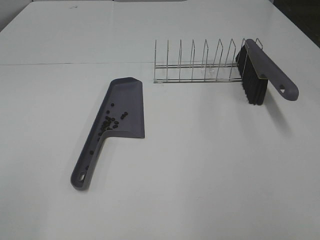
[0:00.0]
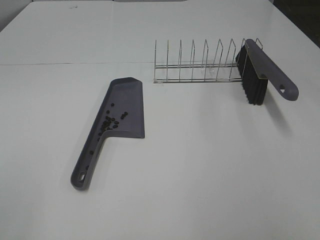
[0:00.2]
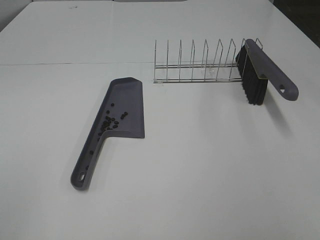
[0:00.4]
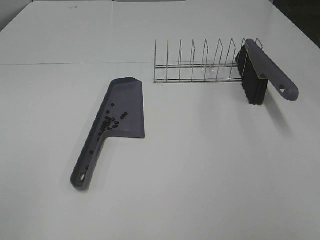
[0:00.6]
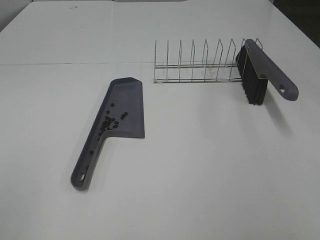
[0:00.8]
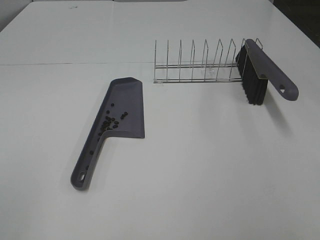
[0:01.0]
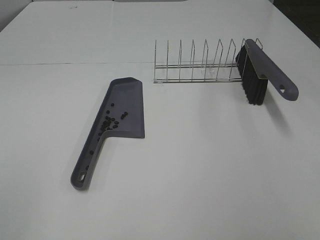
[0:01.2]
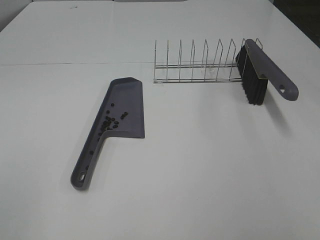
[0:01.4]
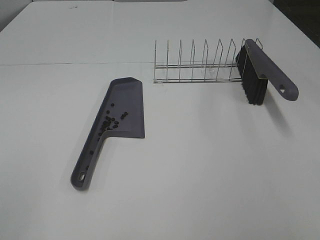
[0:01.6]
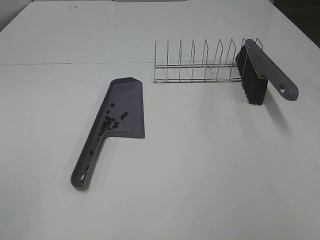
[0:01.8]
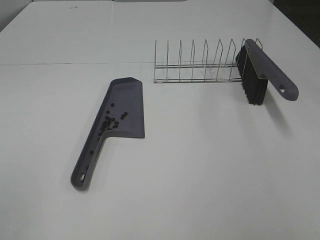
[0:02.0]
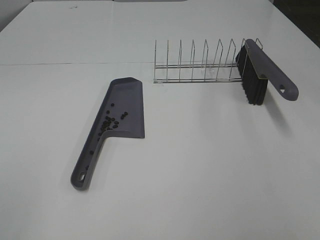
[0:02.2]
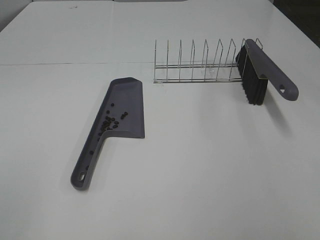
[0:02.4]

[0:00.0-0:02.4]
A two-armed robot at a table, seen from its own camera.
Task of the whole recording: Sweep Coffee Bean.
0:01.2 to 0:02.4: The two grippers keep their place.

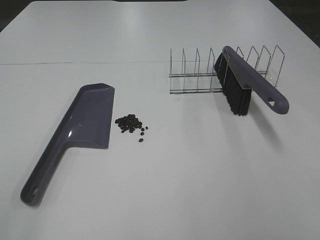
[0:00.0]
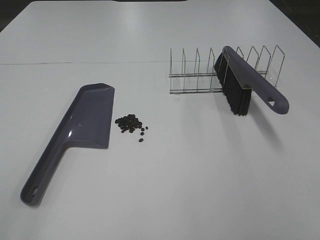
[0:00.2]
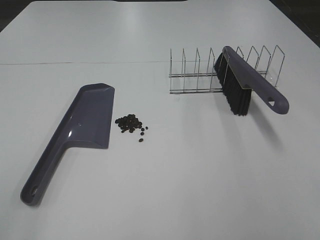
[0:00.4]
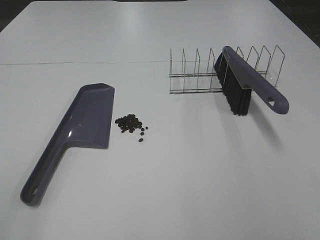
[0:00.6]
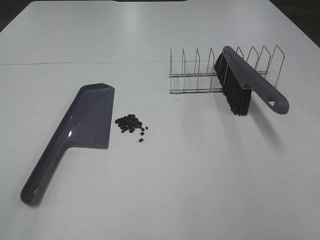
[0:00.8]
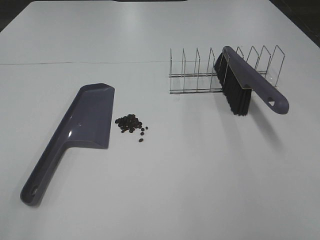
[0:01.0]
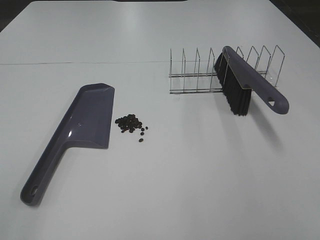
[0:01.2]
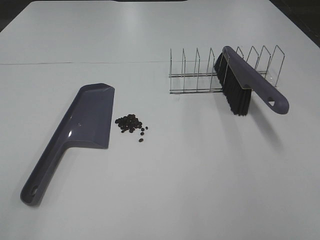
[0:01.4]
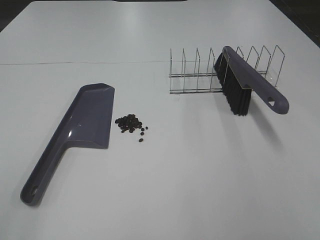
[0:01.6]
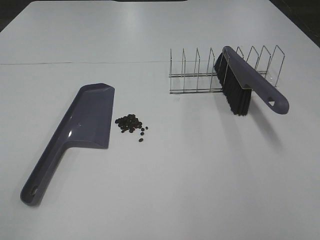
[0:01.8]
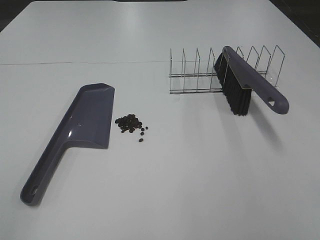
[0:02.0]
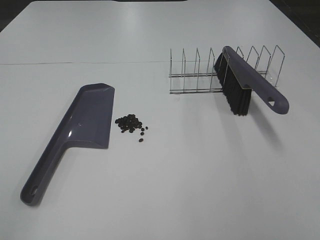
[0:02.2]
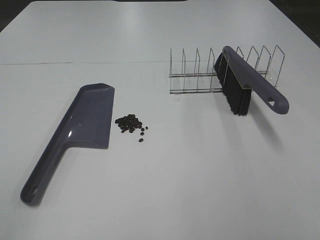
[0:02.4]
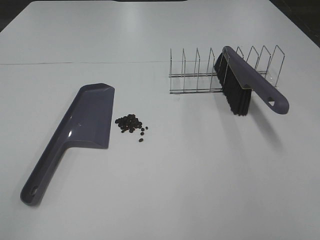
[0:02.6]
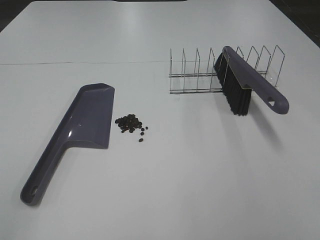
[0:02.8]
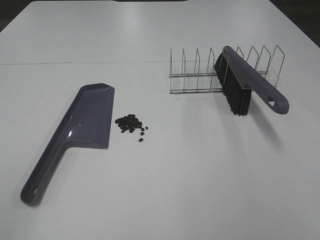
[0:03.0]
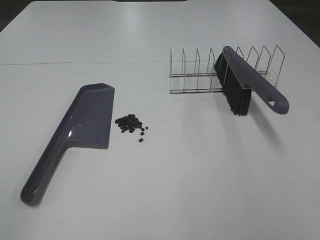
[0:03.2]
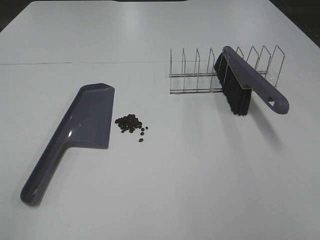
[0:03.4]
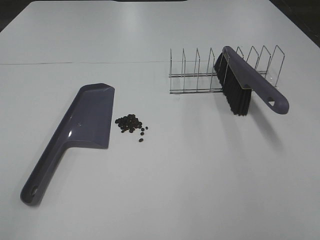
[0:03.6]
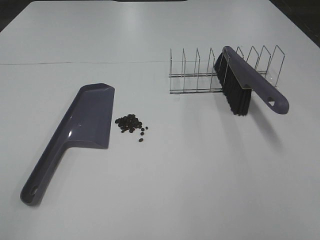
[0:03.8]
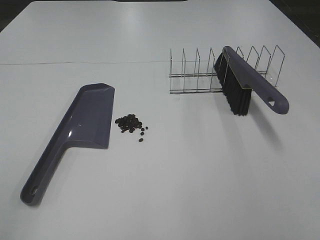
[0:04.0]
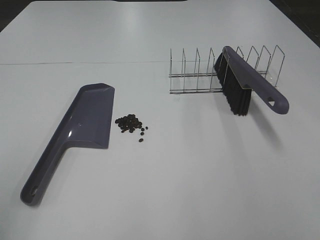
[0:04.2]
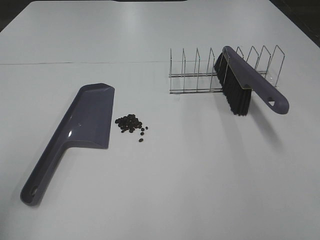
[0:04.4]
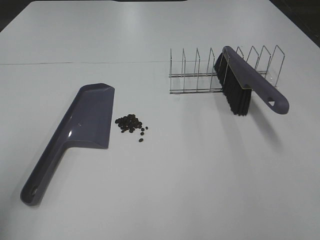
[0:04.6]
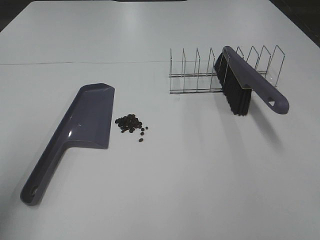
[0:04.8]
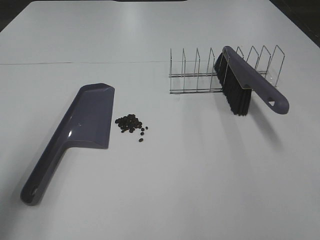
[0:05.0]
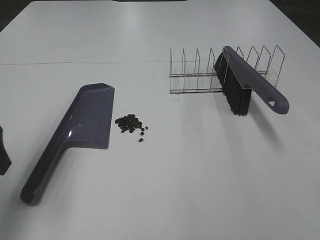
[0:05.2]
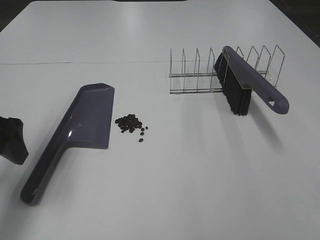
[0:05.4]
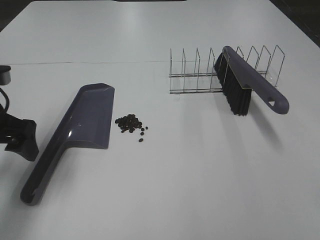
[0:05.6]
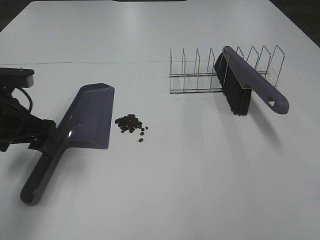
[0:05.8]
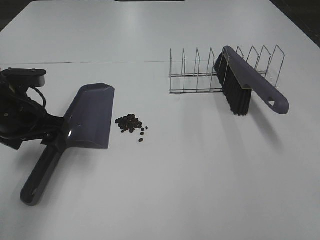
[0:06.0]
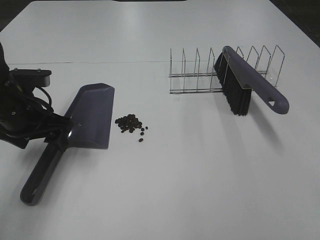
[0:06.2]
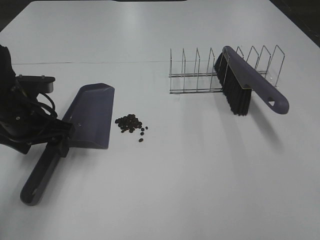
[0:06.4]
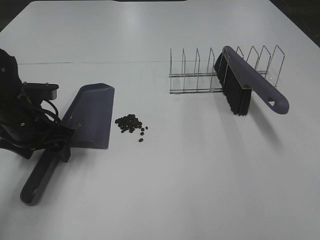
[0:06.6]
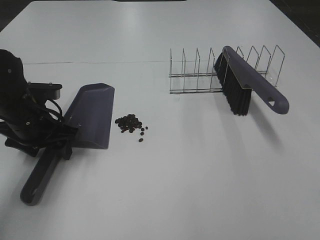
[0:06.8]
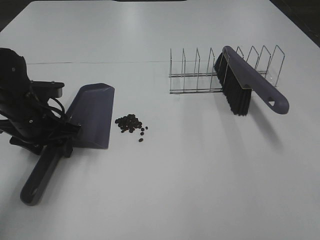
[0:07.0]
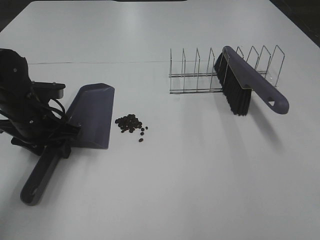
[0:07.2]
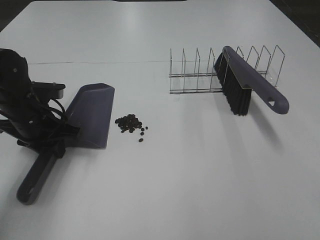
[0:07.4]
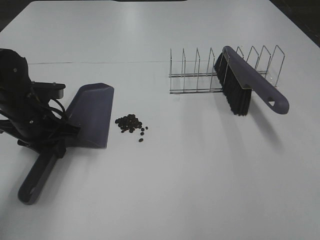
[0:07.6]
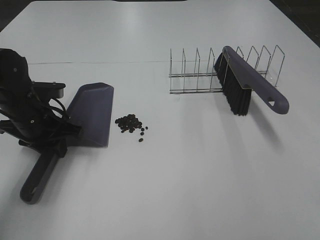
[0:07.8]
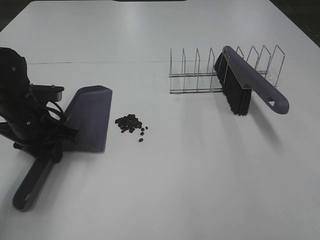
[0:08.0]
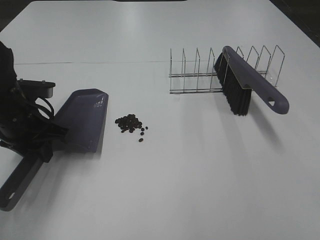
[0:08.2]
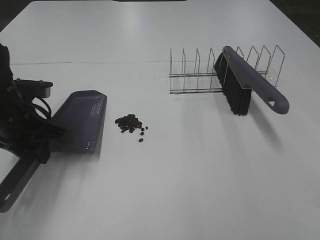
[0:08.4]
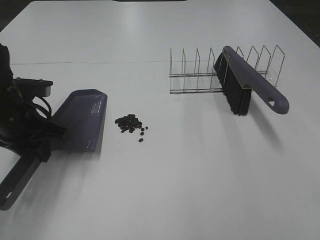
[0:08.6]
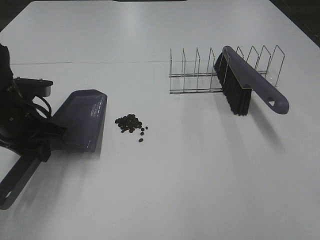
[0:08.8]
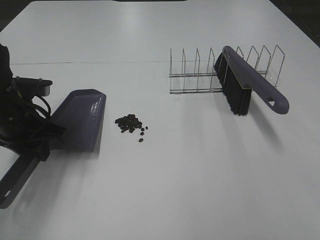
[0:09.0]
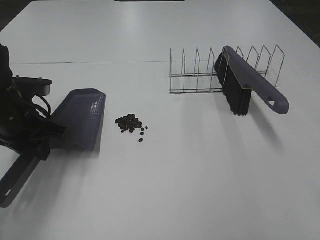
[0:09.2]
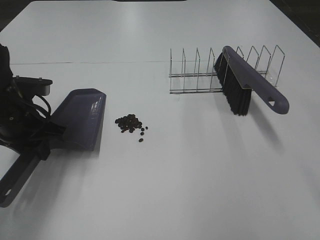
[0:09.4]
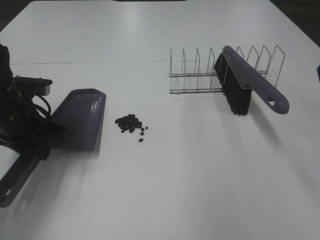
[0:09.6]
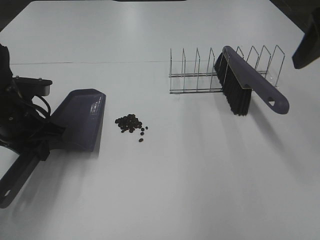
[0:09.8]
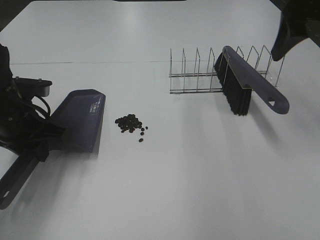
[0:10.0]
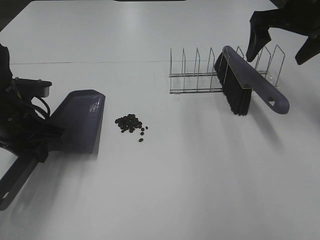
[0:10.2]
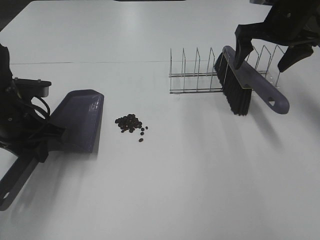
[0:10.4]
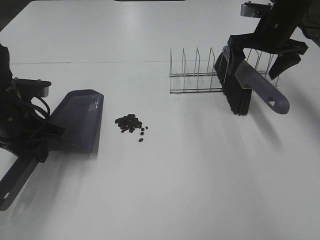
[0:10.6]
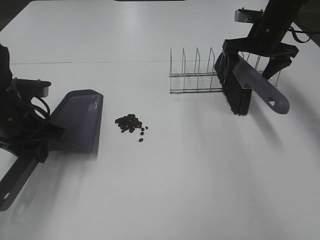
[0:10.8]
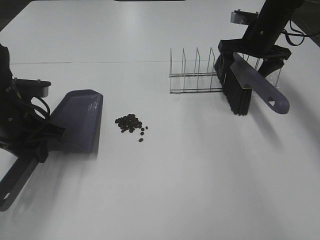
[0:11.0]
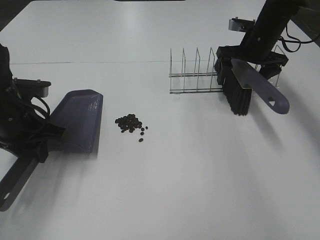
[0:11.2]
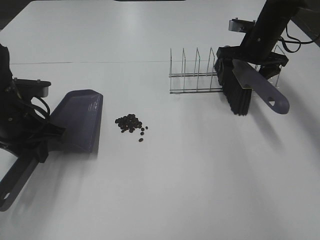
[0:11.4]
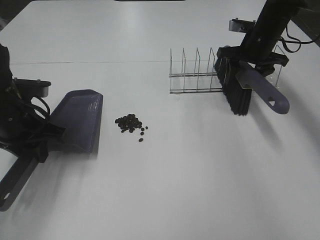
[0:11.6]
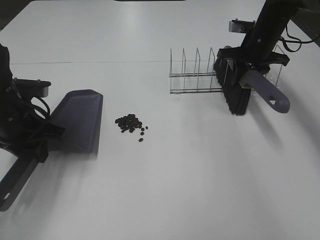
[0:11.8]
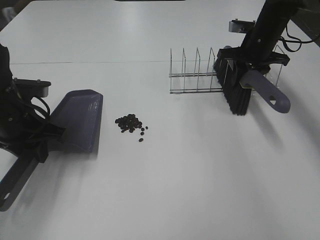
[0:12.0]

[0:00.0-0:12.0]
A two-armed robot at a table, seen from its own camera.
Task of the whole recording: Sweep Coffee Bean.
Step, 0:00.0 to 0:07.4: Left hand: grab the dustpan.
Step, 0:08.8 to 0:11.6: Right hand:grab the broom.
0:00.0 to 0:01.6: The two grippers keep their place.
0:04.4 to 0:06.0: The left gripper moves forward, downward and to the right, about 25 cm.
0:06.0 to 0:07.6: The left gripper ends up roughly 5 cm from where it was, and closes.
0:09.0 to 0:10.4: The right gripper is displaced forward by roughly 40 cm.
0:10.4 to 0:12.0: The right gripper moves downward and forward, some 10 cm, and closes.

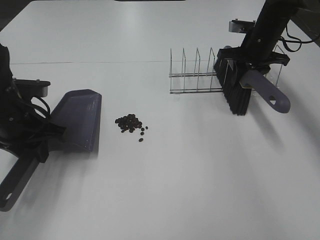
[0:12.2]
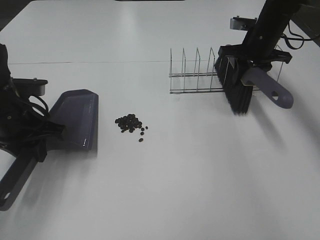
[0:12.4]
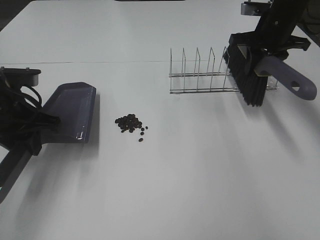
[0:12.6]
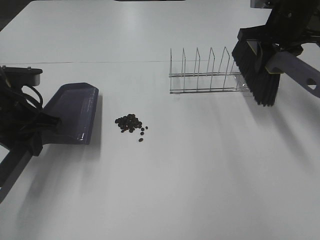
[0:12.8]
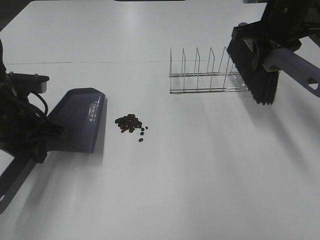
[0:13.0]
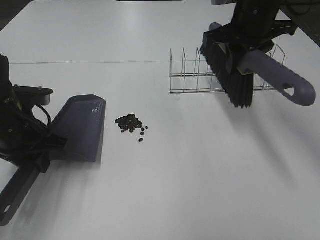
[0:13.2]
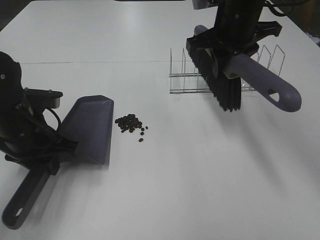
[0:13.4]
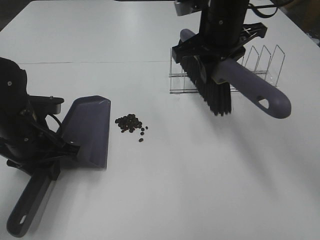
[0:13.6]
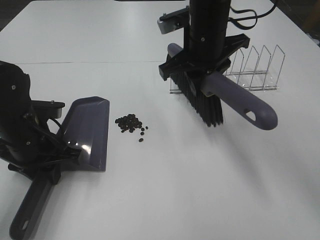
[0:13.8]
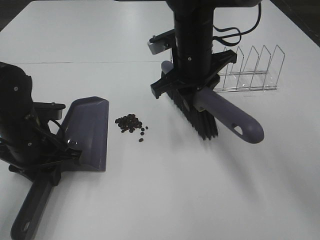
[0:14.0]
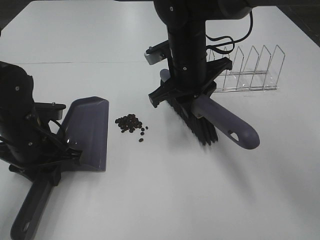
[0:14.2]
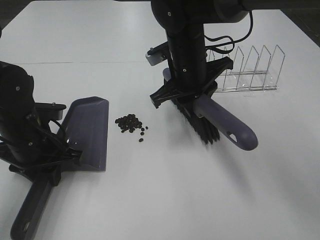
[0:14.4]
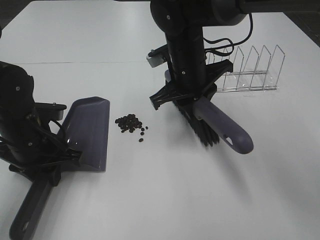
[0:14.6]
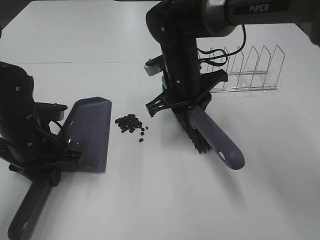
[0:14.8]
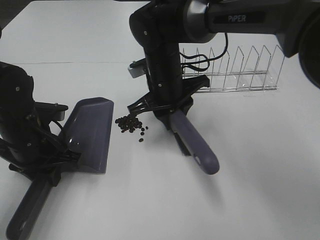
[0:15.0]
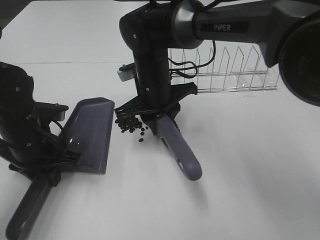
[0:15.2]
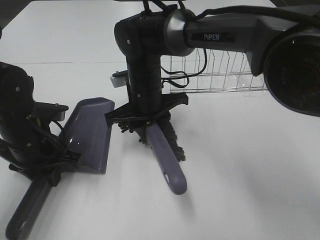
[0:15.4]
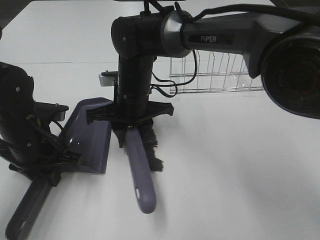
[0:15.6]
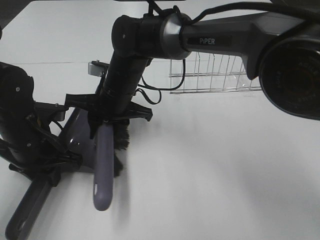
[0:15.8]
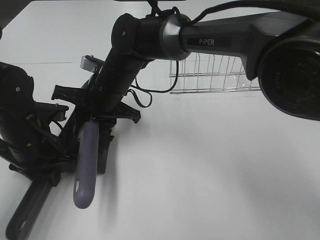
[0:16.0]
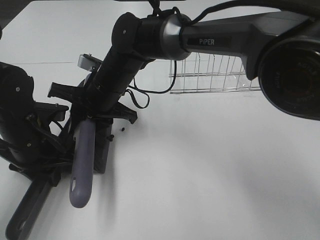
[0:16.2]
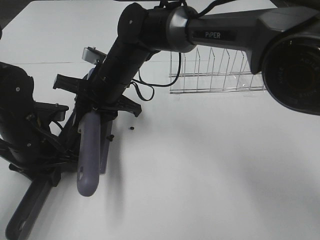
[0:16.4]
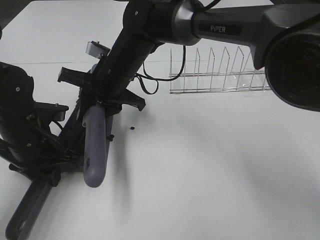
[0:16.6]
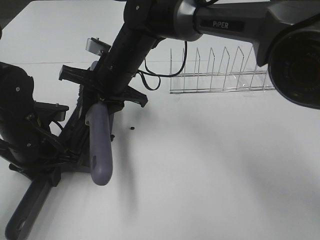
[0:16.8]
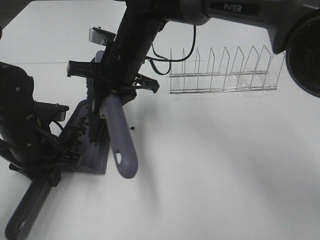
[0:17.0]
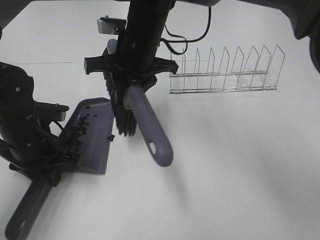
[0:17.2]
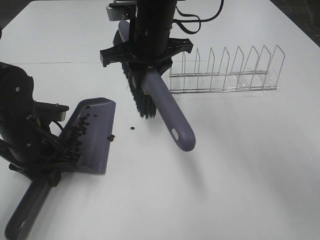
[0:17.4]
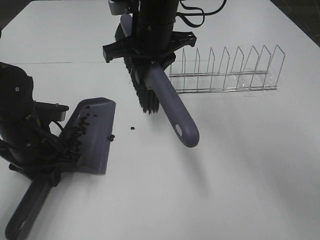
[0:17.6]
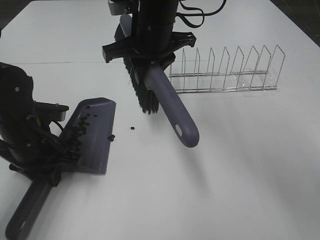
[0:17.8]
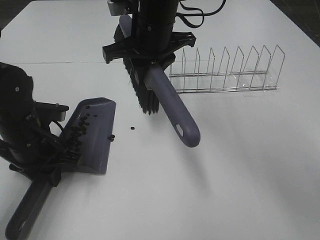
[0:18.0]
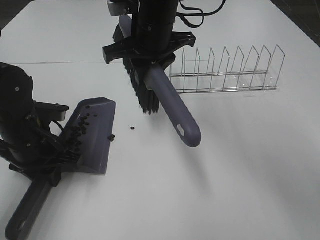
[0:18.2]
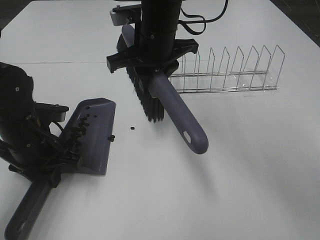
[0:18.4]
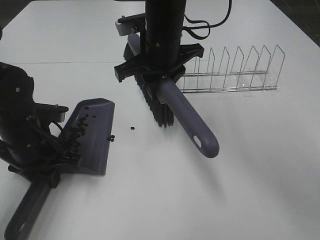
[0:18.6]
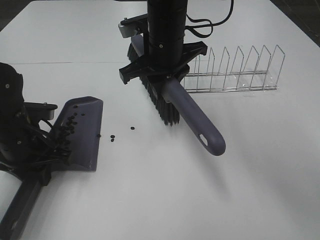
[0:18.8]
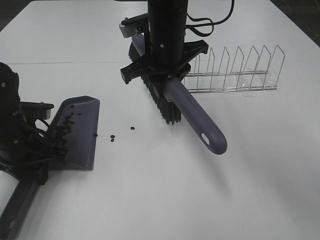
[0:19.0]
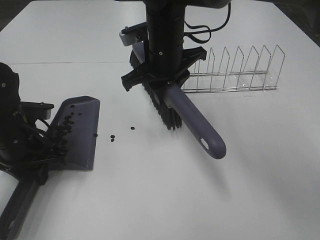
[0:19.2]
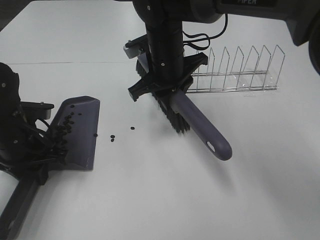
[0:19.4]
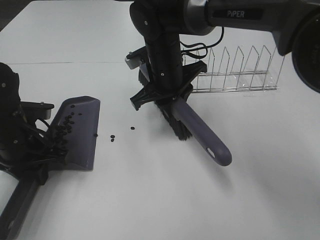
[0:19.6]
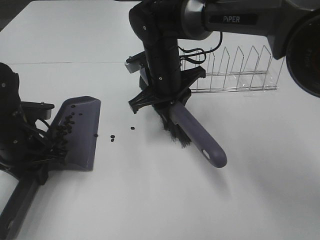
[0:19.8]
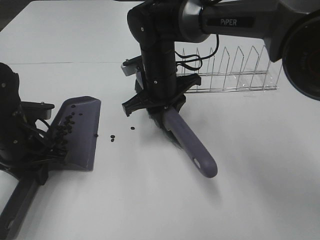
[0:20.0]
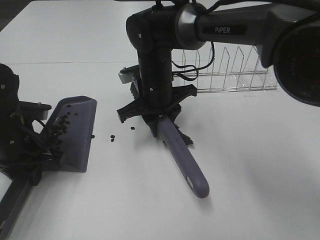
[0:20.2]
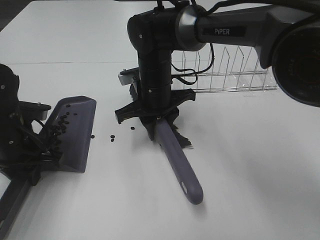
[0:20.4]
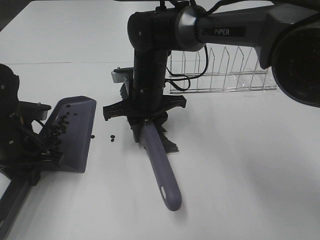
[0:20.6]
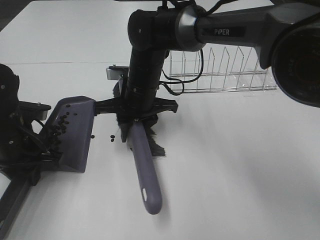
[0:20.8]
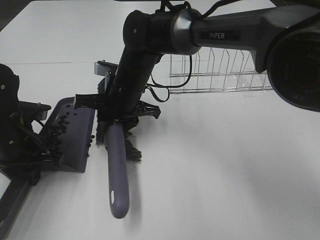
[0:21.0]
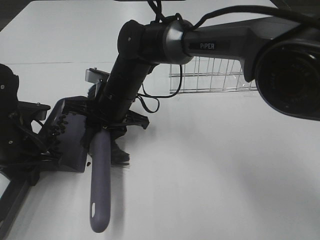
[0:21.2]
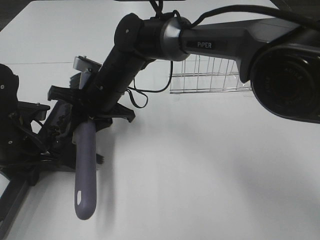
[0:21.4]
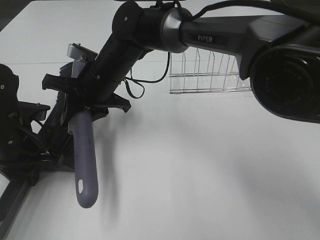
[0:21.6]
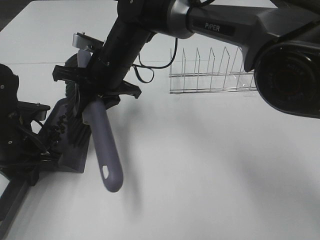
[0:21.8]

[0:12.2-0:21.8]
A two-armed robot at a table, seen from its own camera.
Task of the whole recording: Sweep Coffee Bean.
Step, 0:12.2 to 0:21.6: Right hand:sweep the coffee beans into the dustpan.
0:12.2 to 0:13.8: The right gripper travels to the left, backward and upward by about 20 cm.
0:13.8 to 0:15.4: The right gripper moves downward and to the left, approximately 15 cm.
0:15.4 to 0:17.0: The right gripper goes about 5 cm upward.
0:17.0 to 0:18.6: The right gripper travels to the right by some 5 cm.
0:18.6 to 0:20.2: The right gripper goes roughly 10 cm downward.
0:20.2 to 0:21.8: The right gripper heads to the left, covering about 5 cm.
